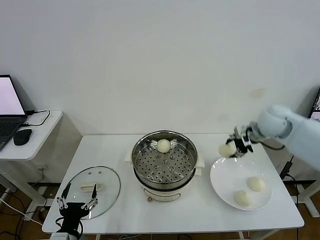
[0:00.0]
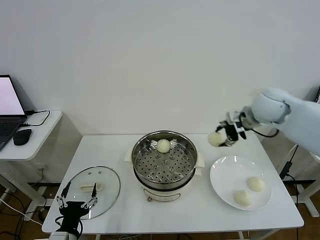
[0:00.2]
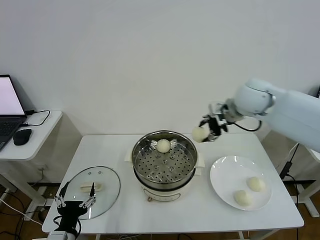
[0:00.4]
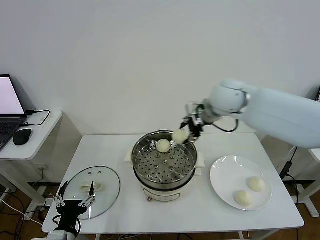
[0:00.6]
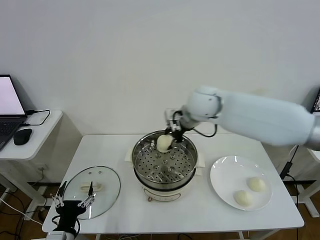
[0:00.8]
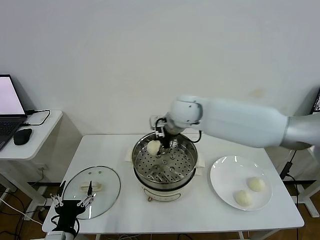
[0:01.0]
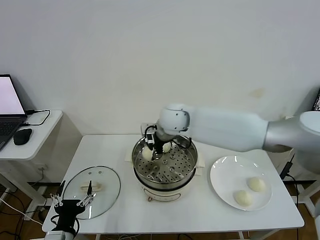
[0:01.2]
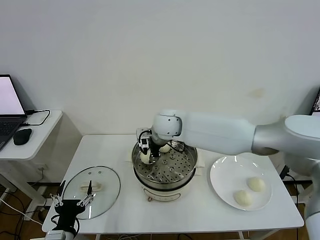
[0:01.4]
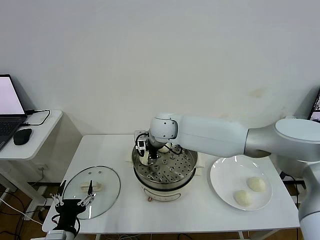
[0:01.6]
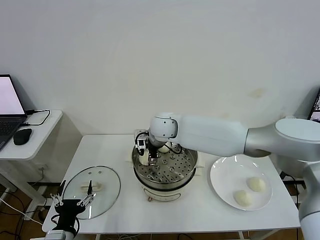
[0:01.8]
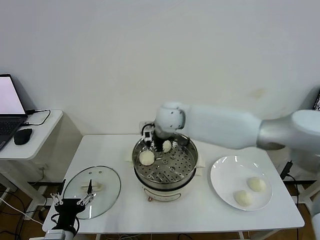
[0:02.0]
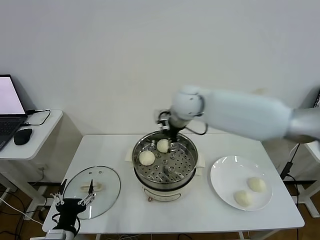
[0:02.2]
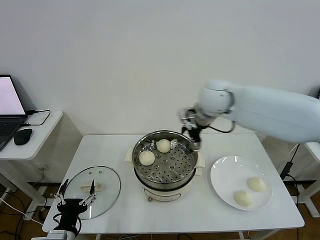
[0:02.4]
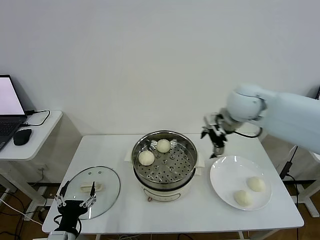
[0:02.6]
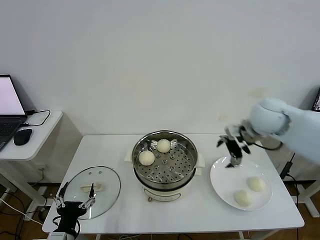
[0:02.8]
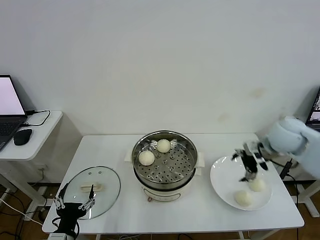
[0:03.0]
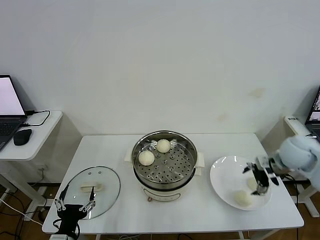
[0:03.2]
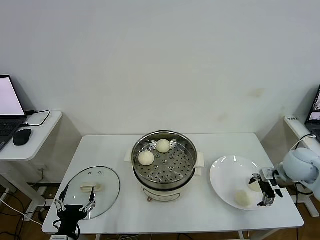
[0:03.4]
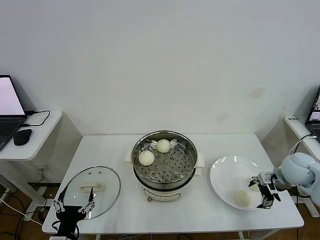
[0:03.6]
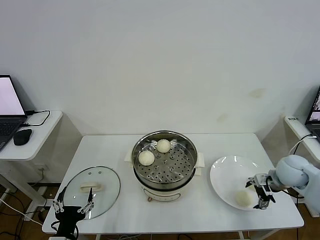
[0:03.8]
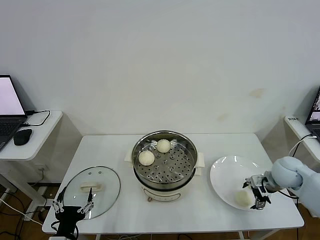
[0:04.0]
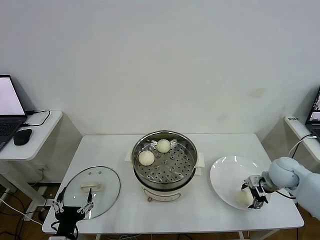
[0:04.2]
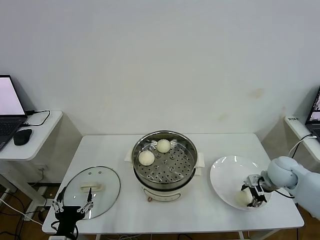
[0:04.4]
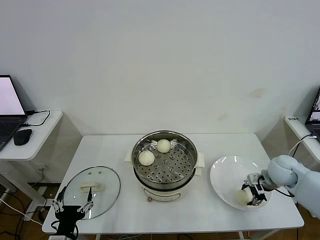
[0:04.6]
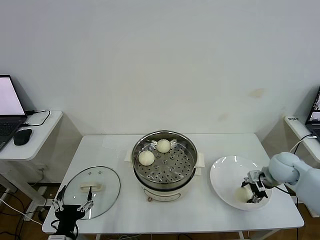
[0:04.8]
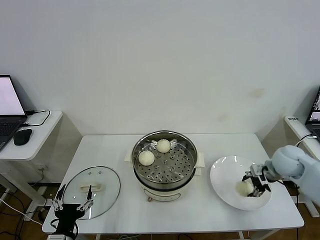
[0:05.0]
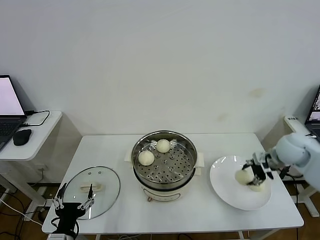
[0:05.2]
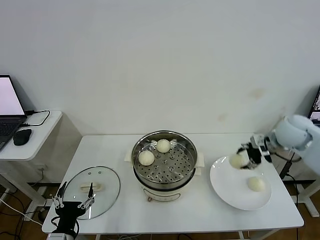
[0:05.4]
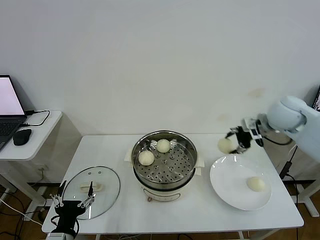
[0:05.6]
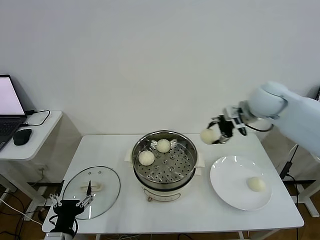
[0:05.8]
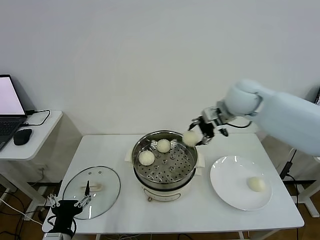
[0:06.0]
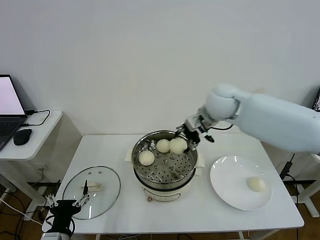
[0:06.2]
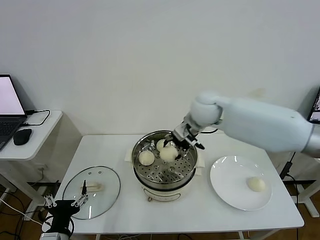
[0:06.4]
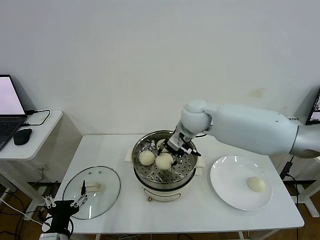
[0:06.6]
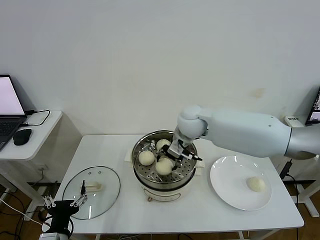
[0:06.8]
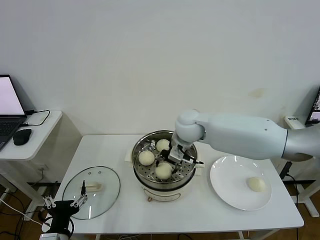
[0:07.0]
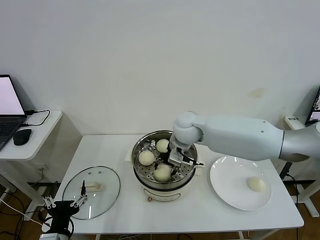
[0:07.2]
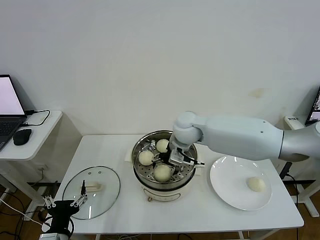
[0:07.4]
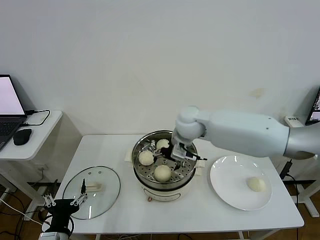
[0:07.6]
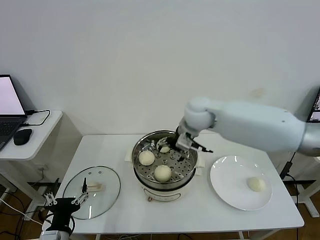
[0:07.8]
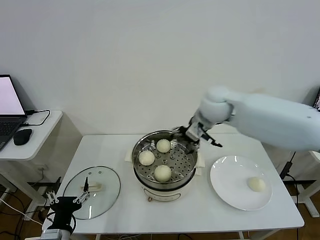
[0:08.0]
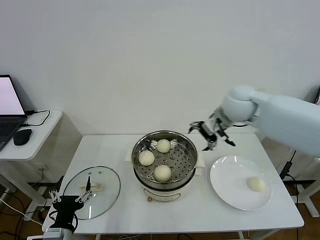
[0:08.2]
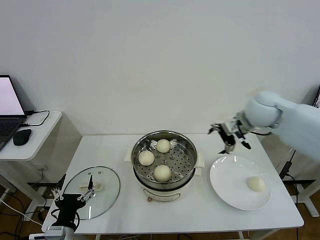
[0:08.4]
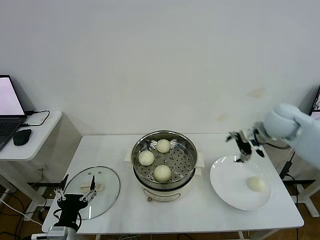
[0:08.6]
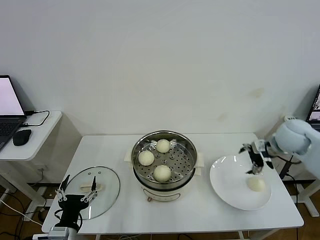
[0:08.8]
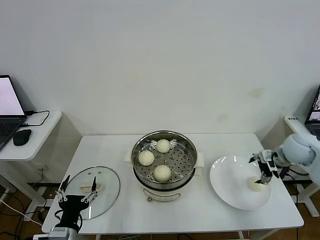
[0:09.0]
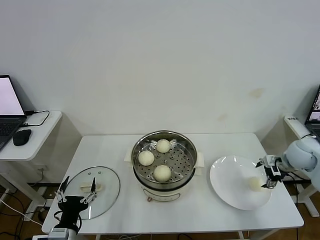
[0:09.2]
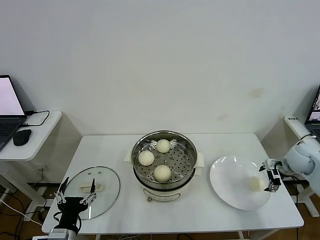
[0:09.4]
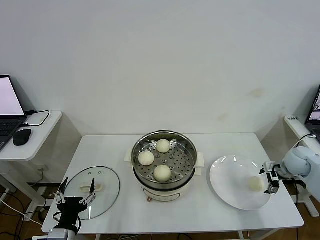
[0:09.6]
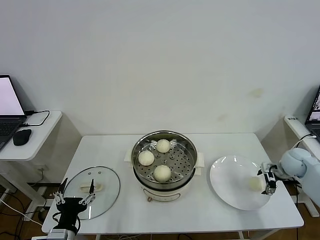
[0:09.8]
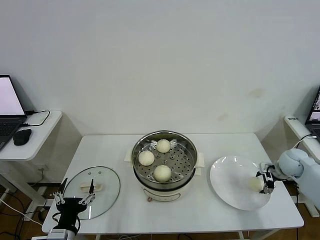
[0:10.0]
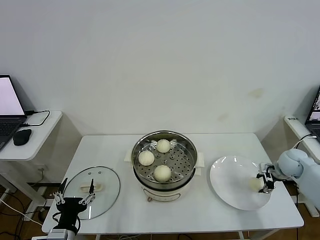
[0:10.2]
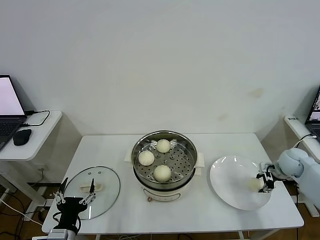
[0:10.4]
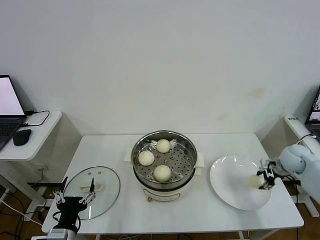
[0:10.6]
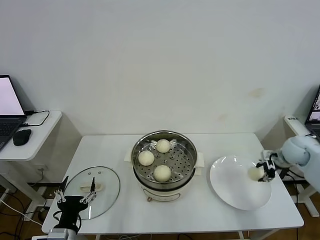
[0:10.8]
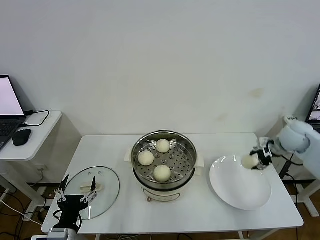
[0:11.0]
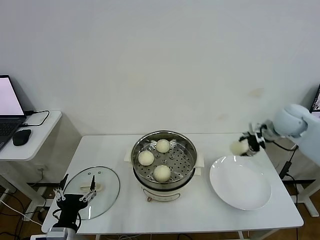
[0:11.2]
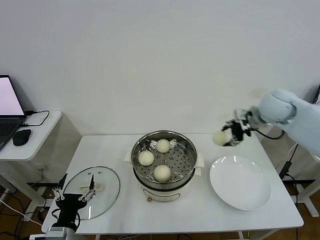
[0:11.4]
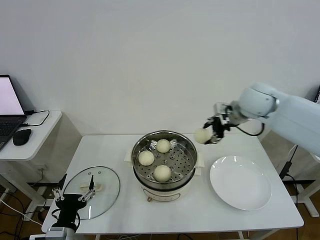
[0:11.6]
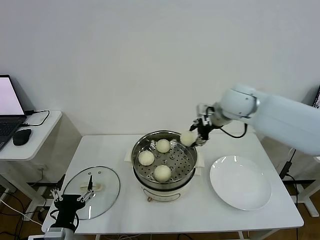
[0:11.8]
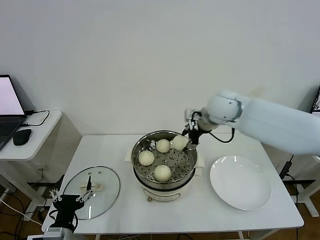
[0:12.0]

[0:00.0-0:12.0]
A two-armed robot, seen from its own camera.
Step, 0:00.0 to 0:02.0: Place the baozi on the steamer with right gripper.
Step, 0:02.2 to 0:04.4: Grasp the baozi in the plate with right gripper.
Step, 0:04.6 to 0:07.4: Place the baozi on the steamer with right gripper.
Step, 0:07.8 to 0:10.2: Grasp the baozi in the plate with right gripper.
0:00.0 to 0:01.6: The right gripper is displaced to the left by approximately 30 cm.
0:01.6 to 0:03.0: The right gripper shifts about 40 cm to the right, and opens its fingers.
0:03.0 to 0:04.4: The right gripper travels downward by about 10 cm, and closes its fingers.
0:04.4 to 0:06.0: The right gripper goes approximately 30 cm upward, to the left and forward.
0:06.0 to 0:07.6: The right gripper shifts some 15 cm to the left and downward, and opens.
0:07.6 to 0:09.0: The right gripper moves to the right, about 35 cm.
0:09.0 to 0:10.4: The right gripper moves downward, roughly 10 cm, and closes.
0:10.4 to 0:12.0: The right gripper heads to the left and upward, covering approximately 35 cm.

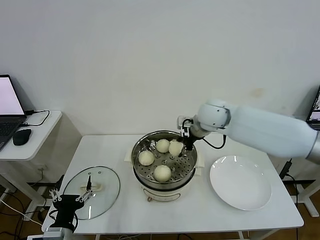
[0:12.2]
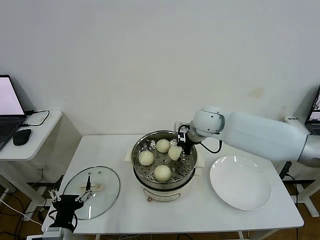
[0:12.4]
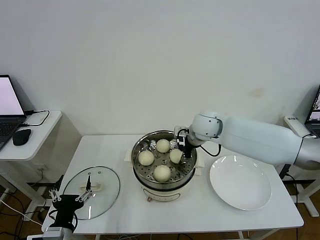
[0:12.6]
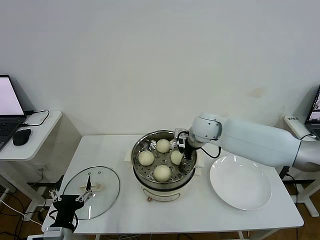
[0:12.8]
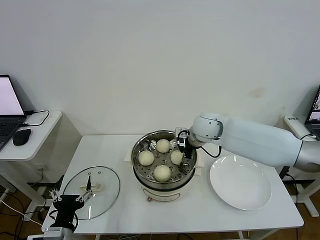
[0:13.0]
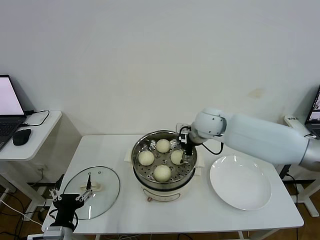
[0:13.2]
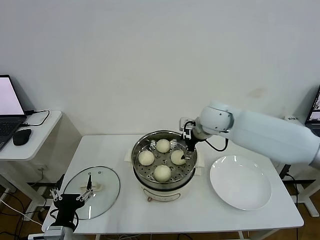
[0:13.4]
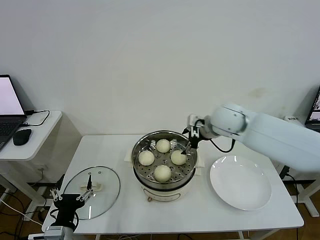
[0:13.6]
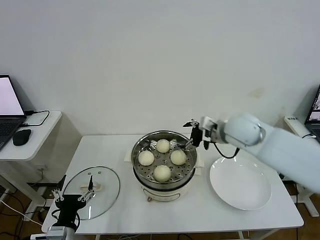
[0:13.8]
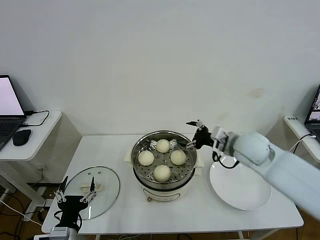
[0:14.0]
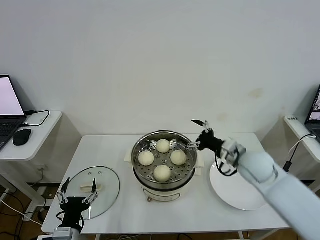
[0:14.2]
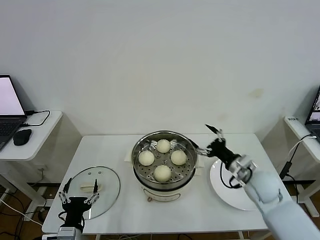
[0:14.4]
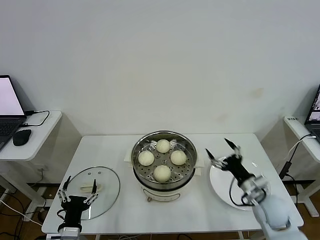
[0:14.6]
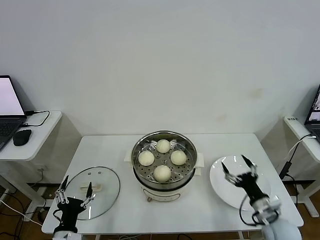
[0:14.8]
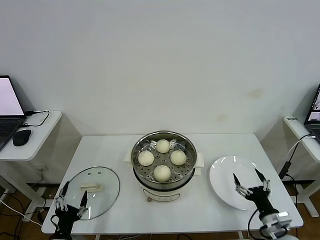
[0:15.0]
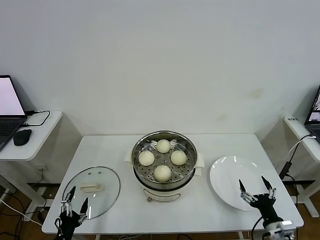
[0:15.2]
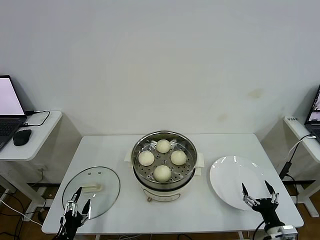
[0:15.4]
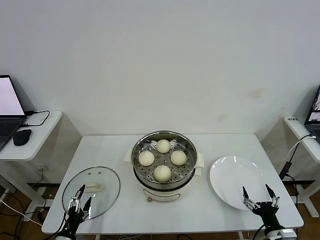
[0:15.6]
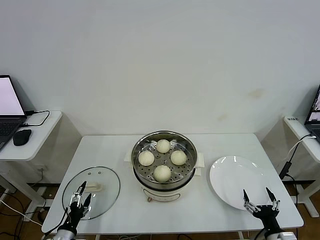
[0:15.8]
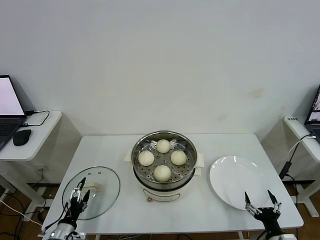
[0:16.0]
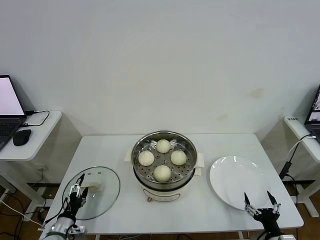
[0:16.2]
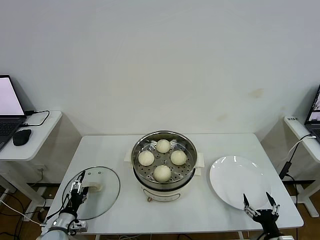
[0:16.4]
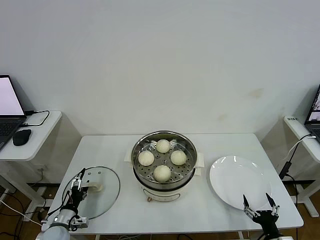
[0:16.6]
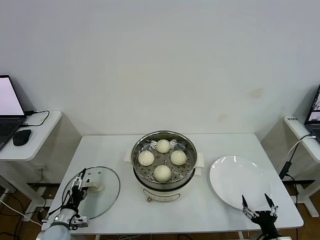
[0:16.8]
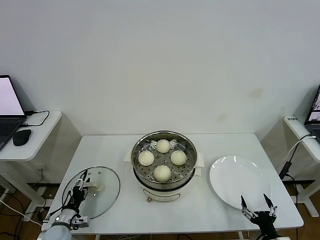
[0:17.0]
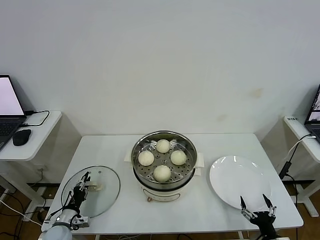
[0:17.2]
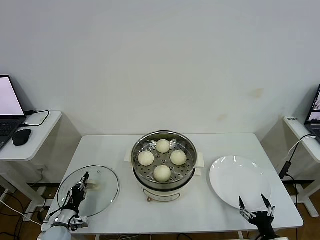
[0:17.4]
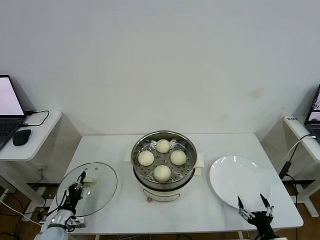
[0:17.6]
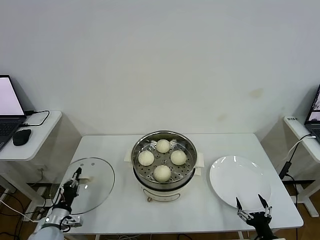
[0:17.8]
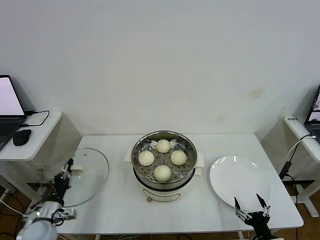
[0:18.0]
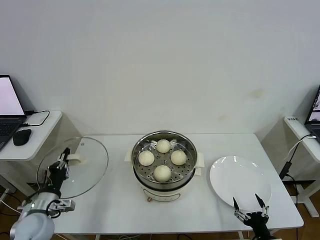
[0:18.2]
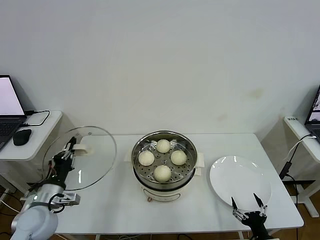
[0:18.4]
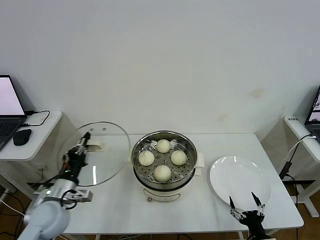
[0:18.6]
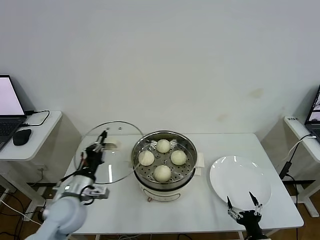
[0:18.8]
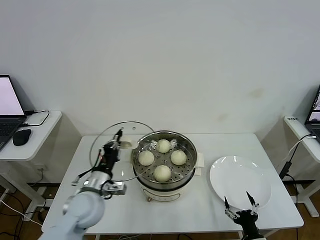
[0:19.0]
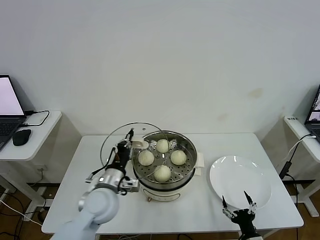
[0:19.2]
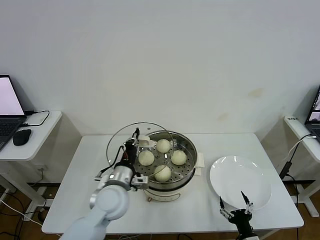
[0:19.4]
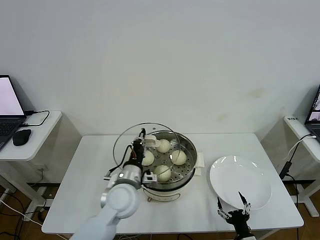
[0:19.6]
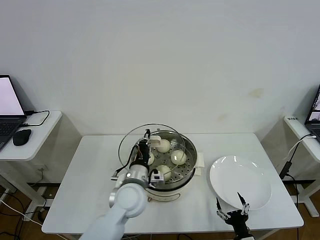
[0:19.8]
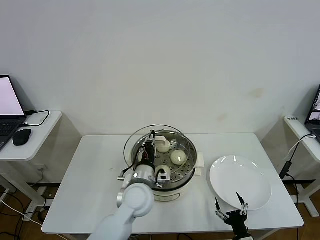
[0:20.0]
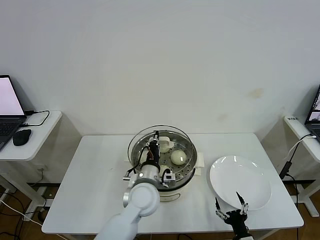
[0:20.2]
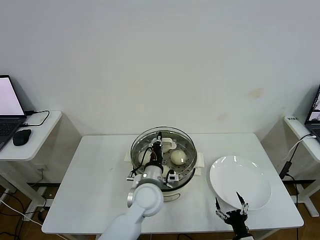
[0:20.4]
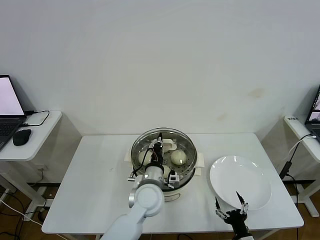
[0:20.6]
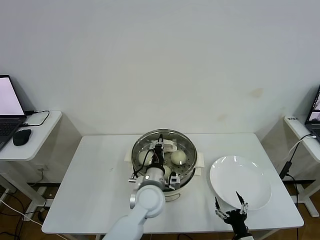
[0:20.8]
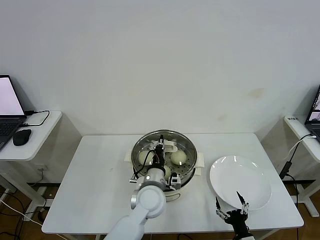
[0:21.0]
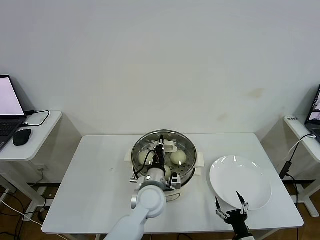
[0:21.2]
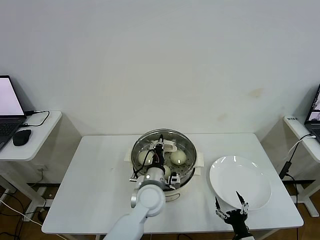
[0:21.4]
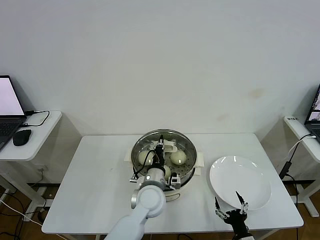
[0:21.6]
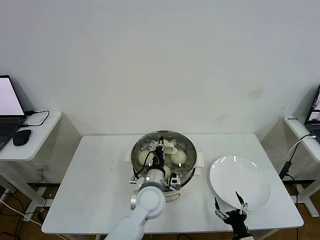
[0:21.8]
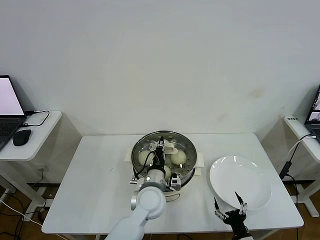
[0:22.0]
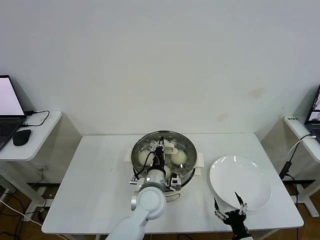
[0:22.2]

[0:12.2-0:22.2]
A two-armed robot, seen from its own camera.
Step, 0:13.4 to 0:17.6: Grasp the pot lid with left gripper.
0:12.2 to 0:13.6: The right gripper shifts by about 5 cm, and opens up.
0:13.6 to 0:15.0: The left gripper is displaced downward by approximately 5 cm. The right gripper is displaced backward, downward and to the right by some 40 cm.
0:15.0 to 0:16.4: The right gripper heads backward, covering some 5 cm, while the left gripper goes roughly 15 cm forward, downward and to the left.
0:16.4 to 0:18.0: The left gripper shifts approximately 5 cm upward, and closes up.
0:18.0 to 0:19.4: The left gripper heads to the right and upward, covering about 25 cm; the right gripper goes approximately 5 cm to the left.
0:19.4 to 0:20.8: The left gripper heads to the right, covering about 10 cm.
0:20.8 to 0:22.2: Both grippers stay put.
